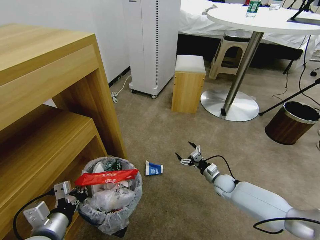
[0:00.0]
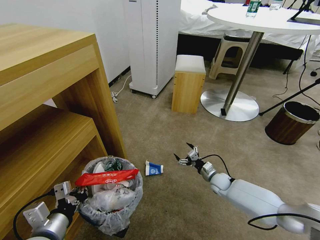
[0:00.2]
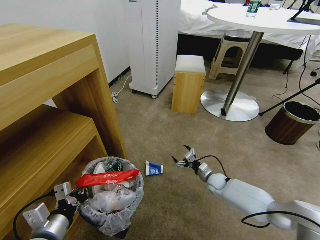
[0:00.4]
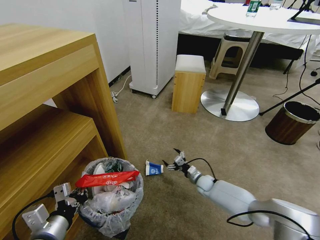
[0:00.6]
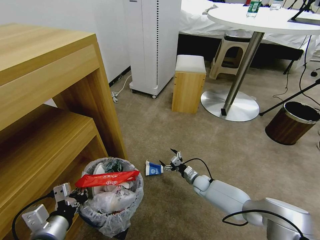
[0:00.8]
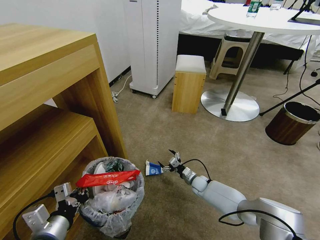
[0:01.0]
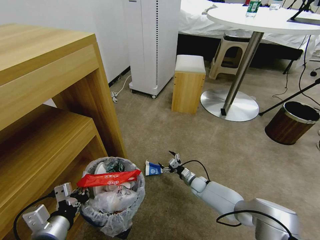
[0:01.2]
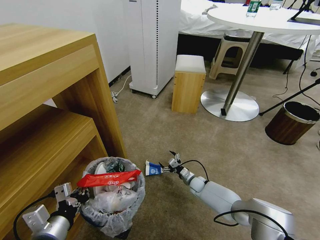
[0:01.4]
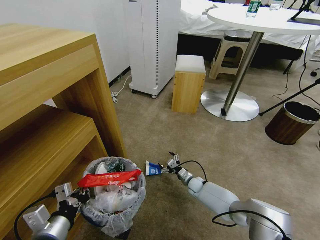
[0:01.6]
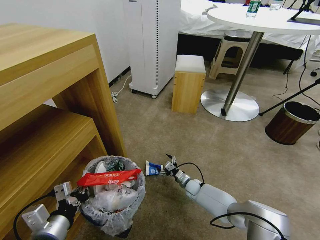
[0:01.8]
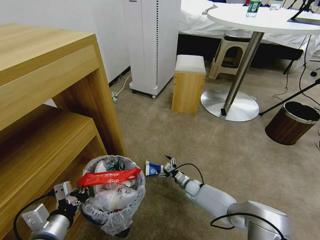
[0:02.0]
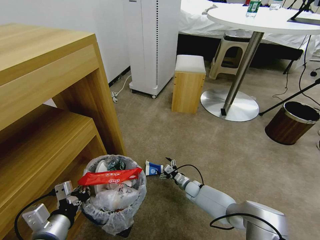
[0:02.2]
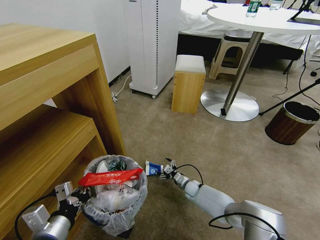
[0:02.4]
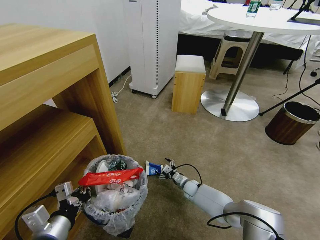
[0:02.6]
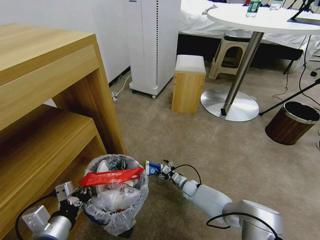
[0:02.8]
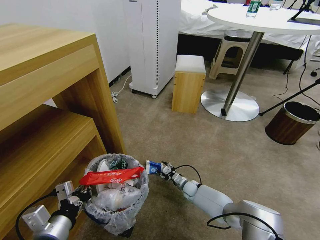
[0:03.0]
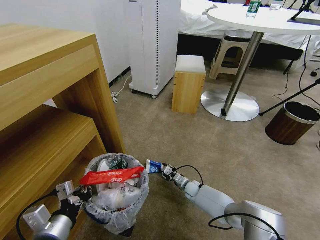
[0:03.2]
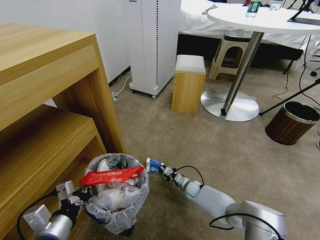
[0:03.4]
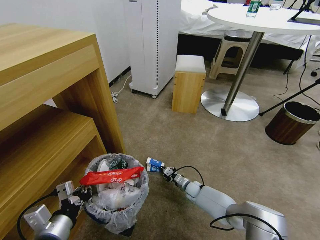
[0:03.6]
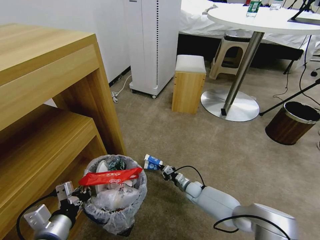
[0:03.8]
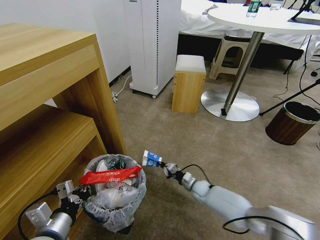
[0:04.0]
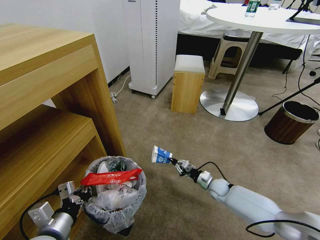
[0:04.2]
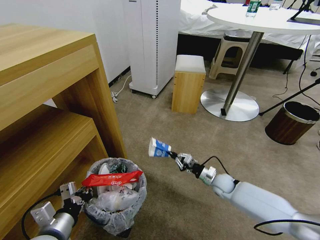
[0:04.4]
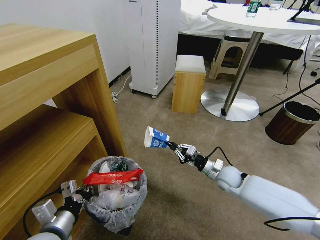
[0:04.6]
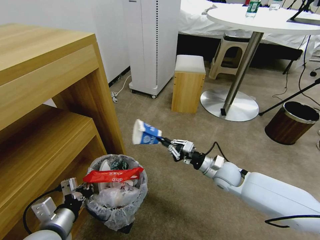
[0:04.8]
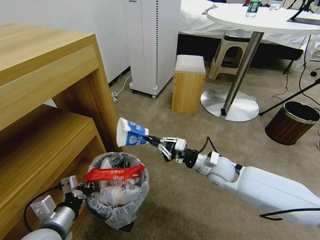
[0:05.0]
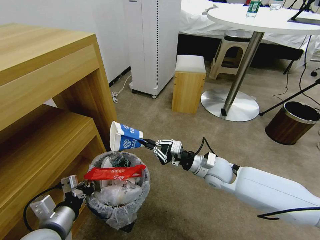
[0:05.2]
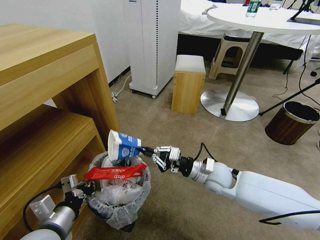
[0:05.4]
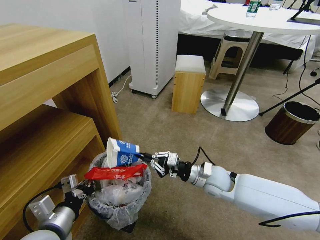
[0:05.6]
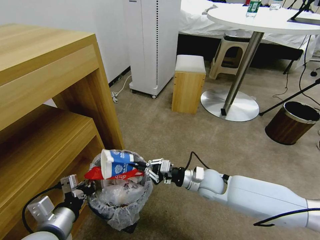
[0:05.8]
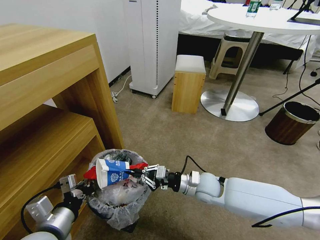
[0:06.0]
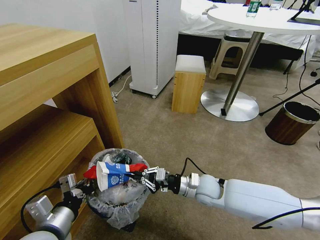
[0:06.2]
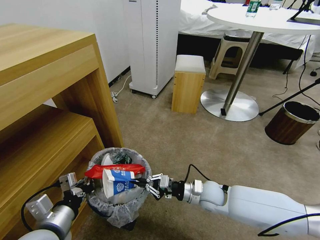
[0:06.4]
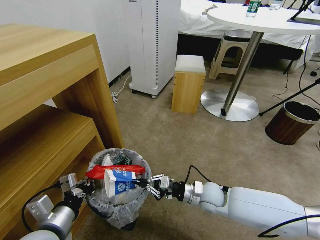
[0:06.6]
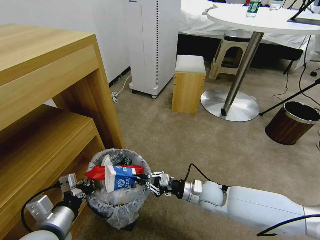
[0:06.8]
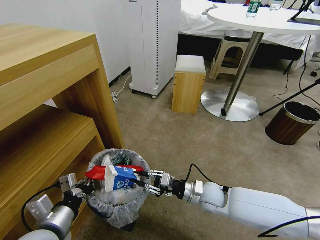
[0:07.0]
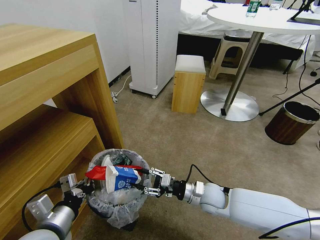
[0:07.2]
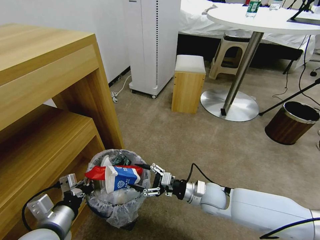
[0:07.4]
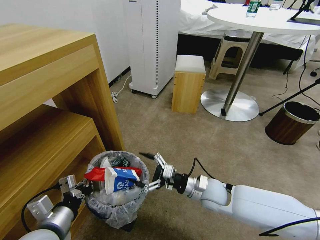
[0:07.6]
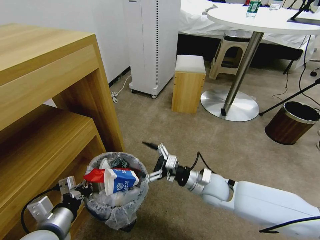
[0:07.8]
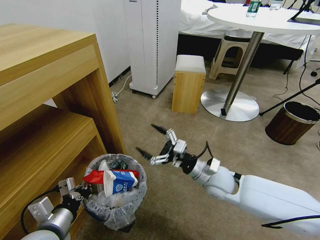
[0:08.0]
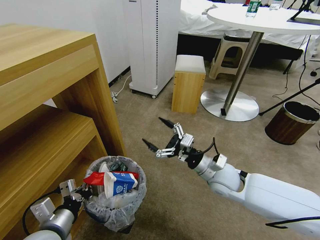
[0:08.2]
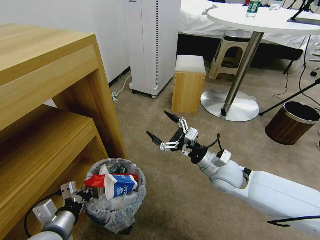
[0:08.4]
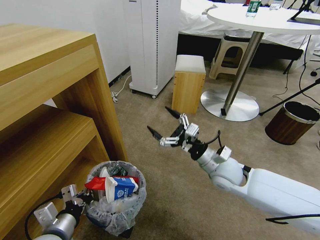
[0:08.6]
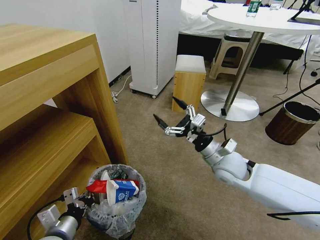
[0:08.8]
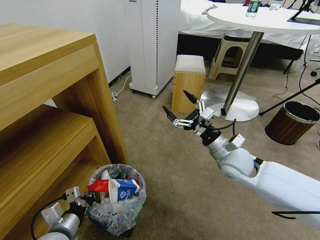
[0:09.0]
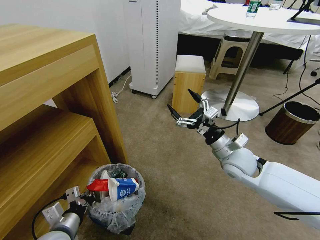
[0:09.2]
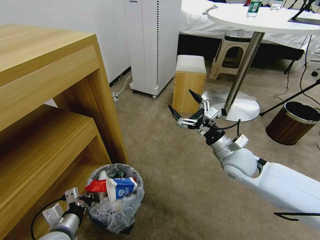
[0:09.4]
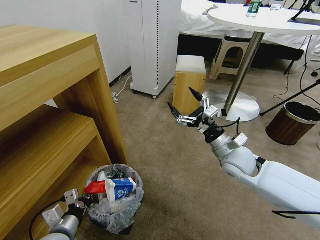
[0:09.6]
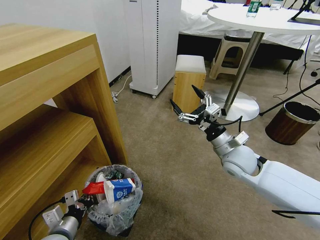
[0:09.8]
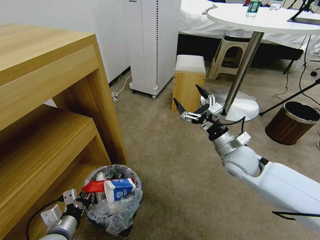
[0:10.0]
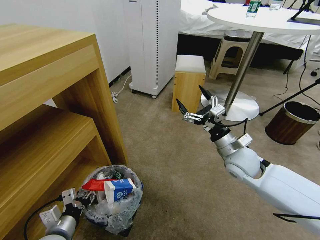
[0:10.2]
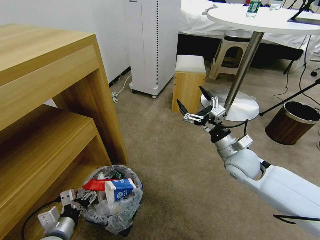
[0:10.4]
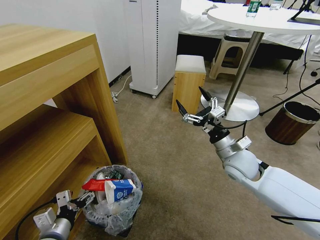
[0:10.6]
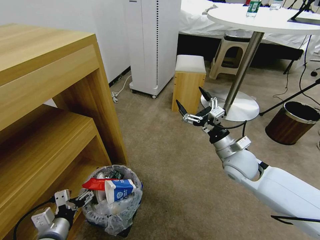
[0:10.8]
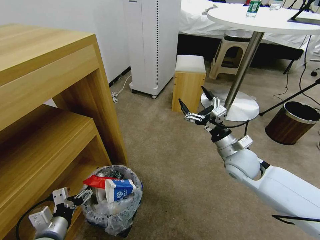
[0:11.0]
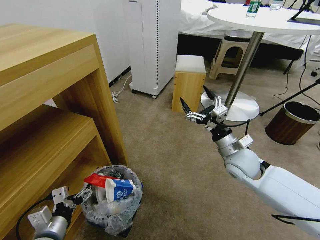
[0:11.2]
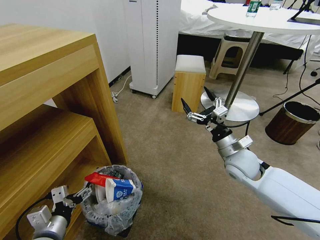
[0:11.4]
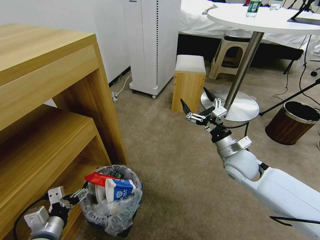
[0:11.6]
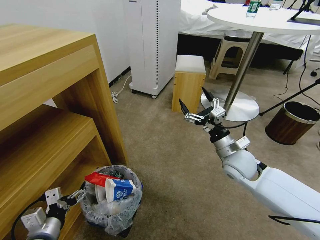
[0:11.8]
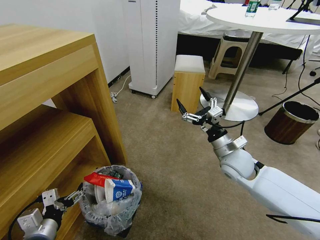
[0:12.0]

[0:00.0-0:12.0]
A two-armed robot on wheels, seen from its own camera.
Task of the whole recording: Pick up the trash bin and place the garbage on the floor into it.
0:00.0 to 0:01.6: The right gripper travels to the left and downward by about 15 cm.
0:01.6 to 0:03.0: The right gripper closes up.
0:03.0 to 0:04.4: The right gripper heads upward and to the right, covering about 15 cm, and closes its fingers.
0:04.4 to 0:06.0: The right gripper heads to the left, upward and backward, covering roughly 15 cm.
0:06.0 to 0:07.6: The right gripper opens its fingers.
0:07.6 to 0:09.0: The left gripper is displaced downward by about 5 cm, while the right gripper travels upward, to the right and forward by about 15 cm.
0:09.0 to 0:10.4: The left gripper opens up.
0:10.4 to 0:12.0: The grippers make only small movements.

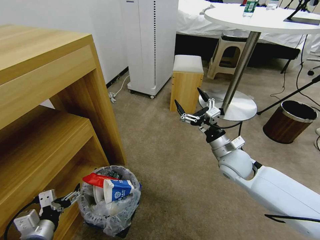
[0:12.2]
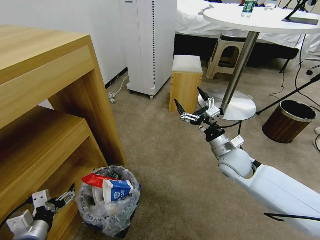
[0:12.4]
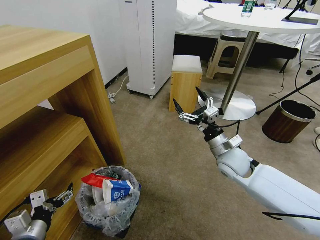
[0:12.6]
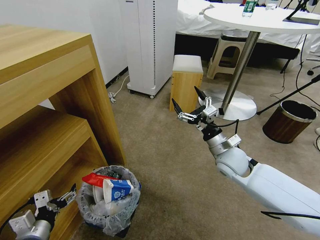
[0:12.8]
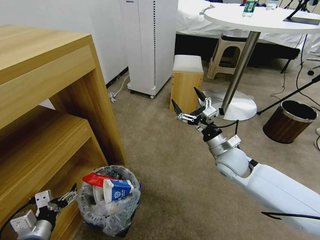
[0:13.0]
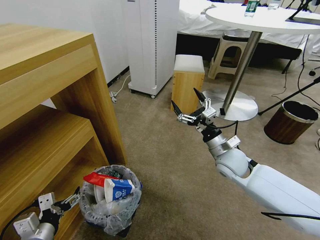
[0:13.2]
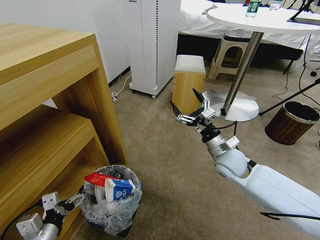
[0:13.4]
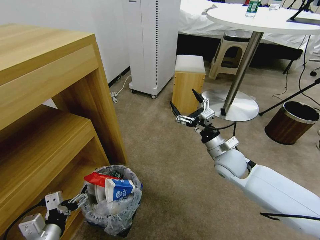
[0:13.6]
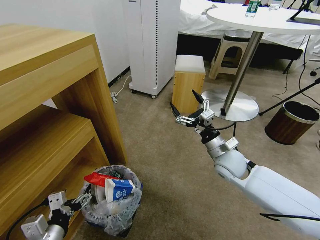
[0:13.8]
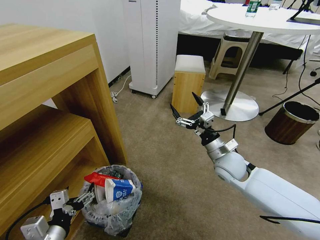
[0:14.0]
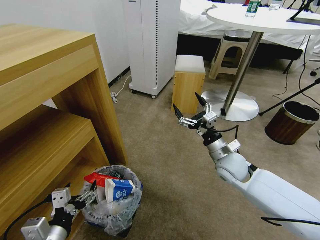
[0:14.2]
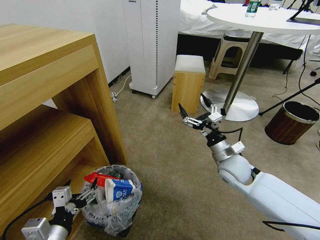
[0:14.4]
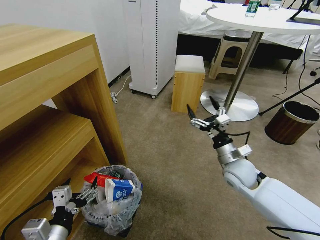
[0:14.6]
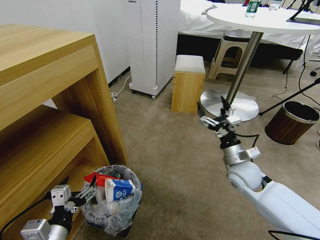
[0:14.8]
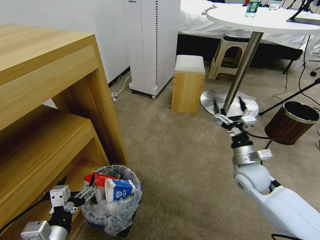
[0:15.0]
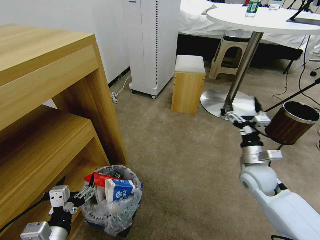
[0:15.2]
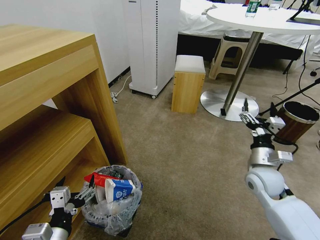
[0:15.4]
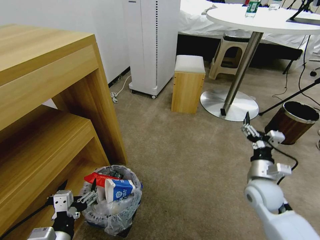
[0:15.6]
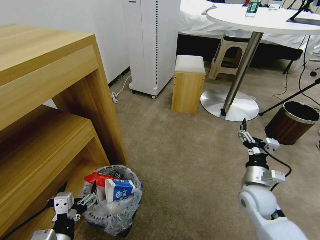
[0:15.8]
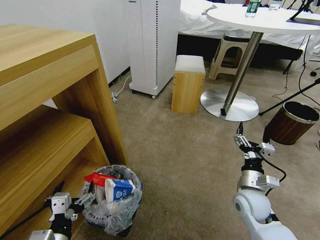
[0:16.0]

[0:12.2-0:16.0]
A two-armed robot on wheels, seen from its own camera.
Task of the whole recording: Pick up the trash bin and place the garbage on the floor into it.
0:12.2 to 0:13.4: The grippers make only small movements.
0:13.4 to 0:14.8: The left gripper travels to the right by some 5 cm. The right gripper changes place by about 5 cm.
0:14.8 to 0:16.0: The right gripper shifts about 10 cm backward and downward.

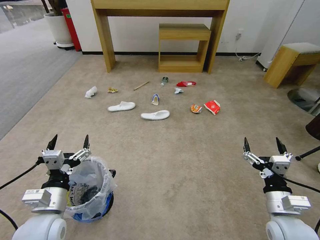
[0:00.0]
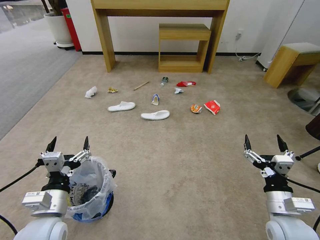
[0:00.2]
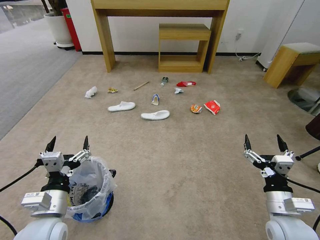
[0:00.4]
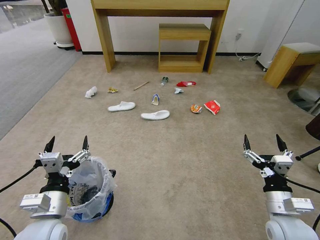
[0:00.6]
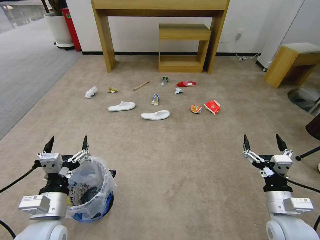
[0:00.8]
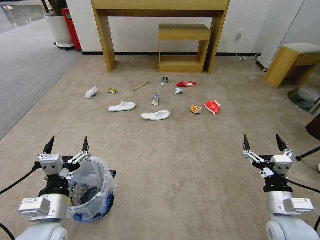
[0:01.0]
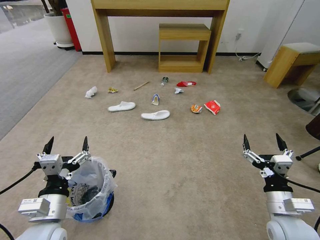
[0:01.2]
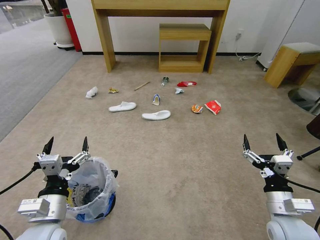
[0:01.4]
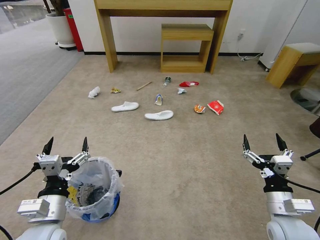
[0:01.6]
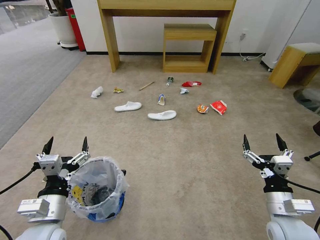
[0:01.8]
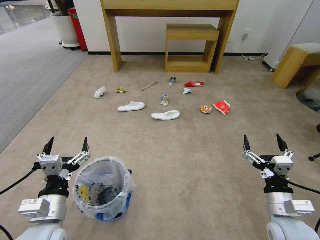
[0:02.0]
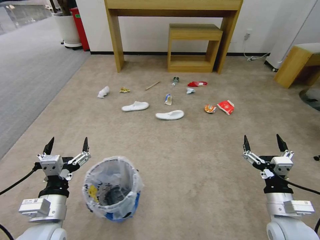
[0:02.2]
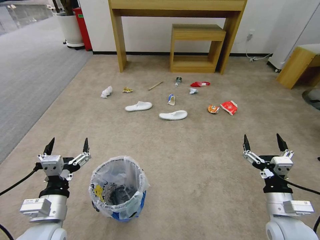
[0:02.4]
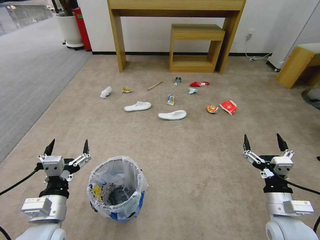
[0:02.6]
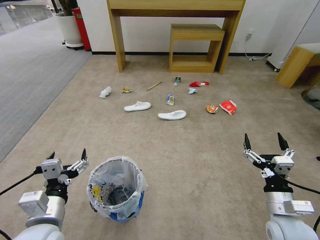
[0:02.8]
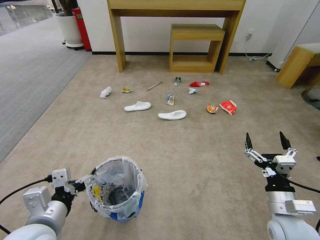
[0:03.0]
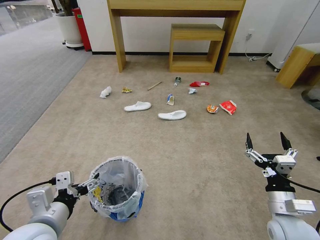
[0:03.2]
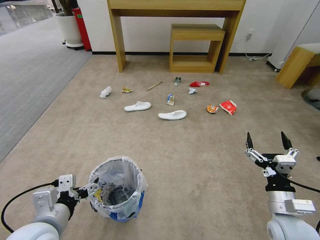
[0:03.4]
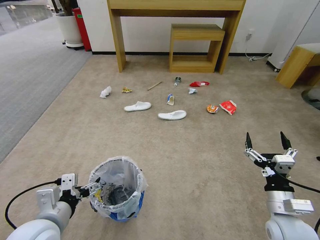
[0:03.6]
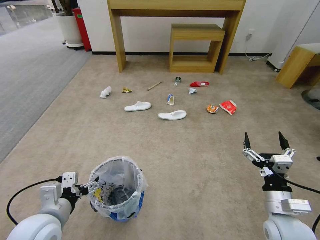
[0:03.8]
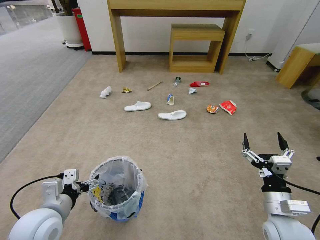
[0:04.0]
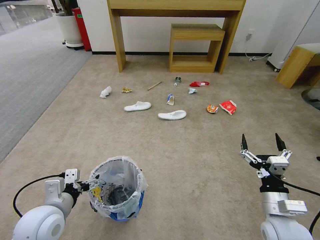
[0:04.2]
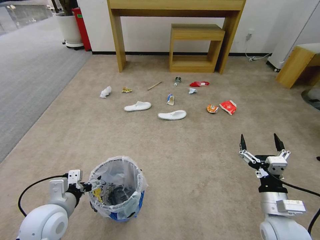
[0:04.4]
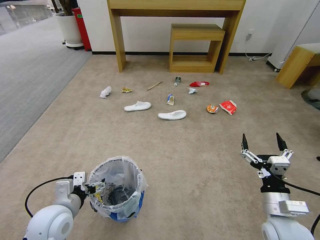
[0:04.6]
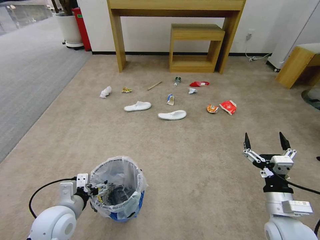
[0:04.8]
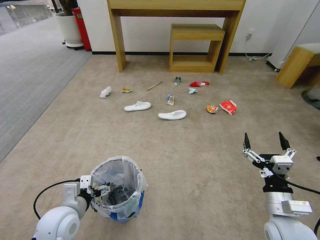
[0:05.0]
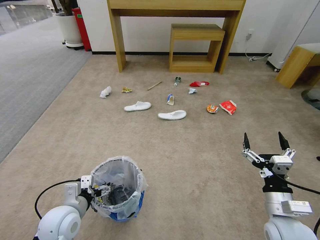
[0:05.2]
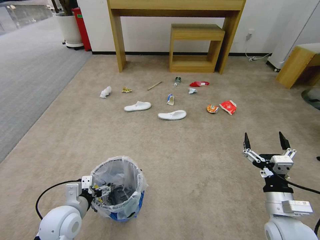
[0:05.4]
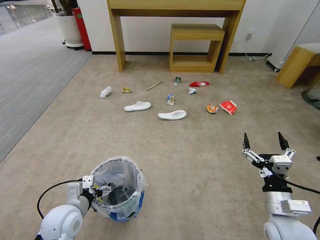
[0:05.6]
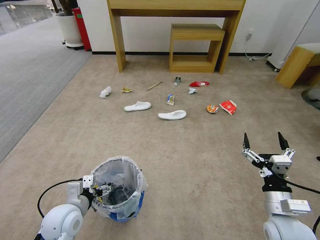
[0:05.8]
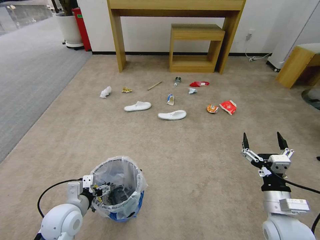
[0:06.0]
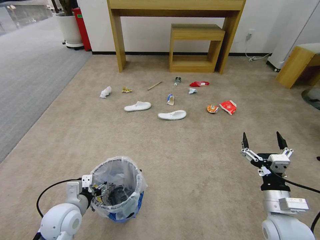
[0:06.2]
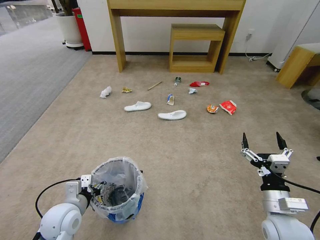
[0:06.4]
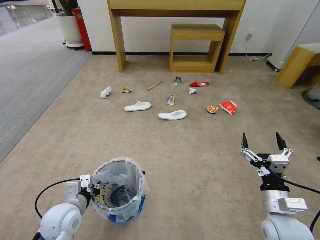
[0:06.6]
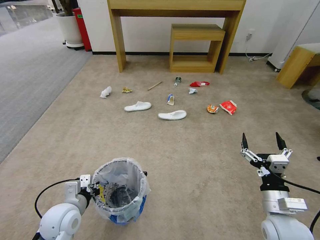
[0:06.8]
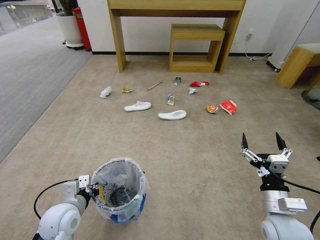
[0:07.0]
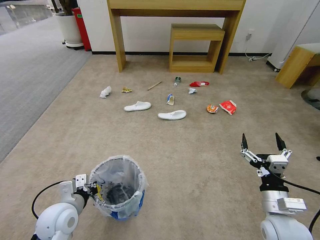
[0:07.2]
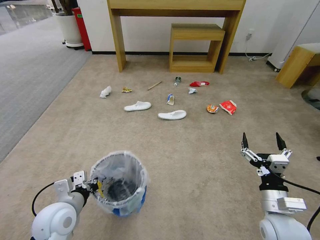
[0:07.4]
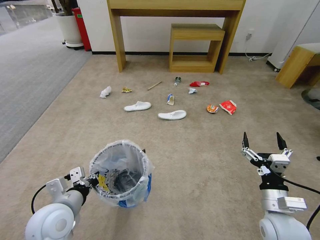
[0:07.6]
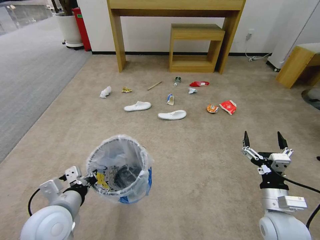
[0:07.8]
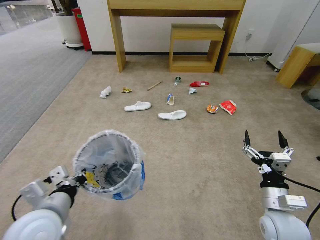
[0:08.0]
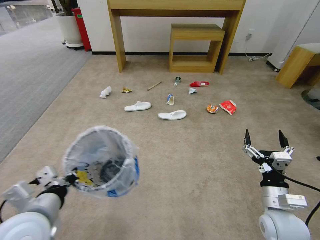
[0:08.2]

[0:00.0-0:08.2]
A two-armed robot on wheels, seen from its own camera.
Task of the whole recording: Pick up the trash bin and place the garbage on the floor into it.
0:03.2 to 0:05.0: The left gripper shifts approximately 10 cm downward and forward.
0:05.0 to 0:06.6: The left gripper closes.
0:06.6 to 0:08.2: The left gripper is displaced upward and backward by some 15 cm.
